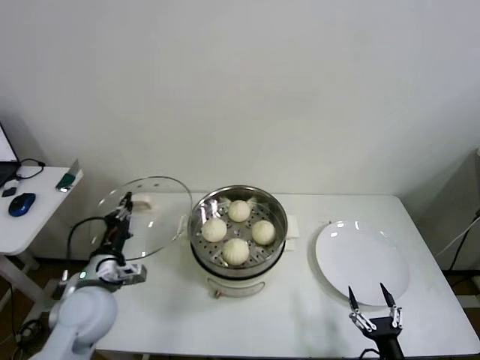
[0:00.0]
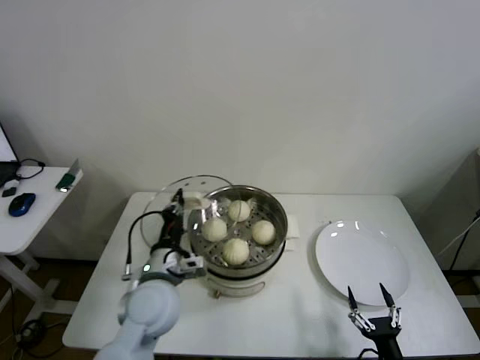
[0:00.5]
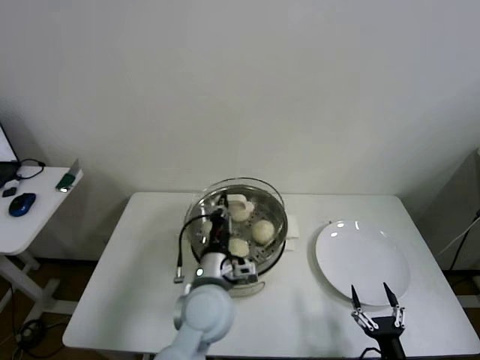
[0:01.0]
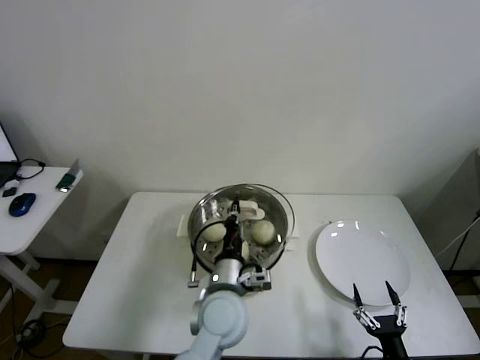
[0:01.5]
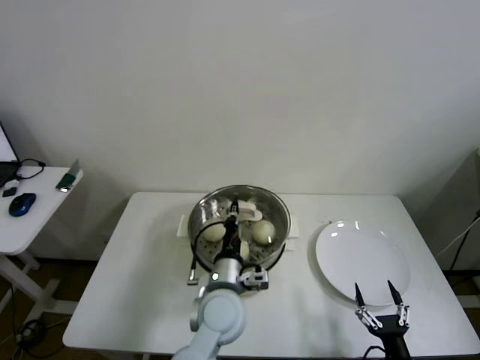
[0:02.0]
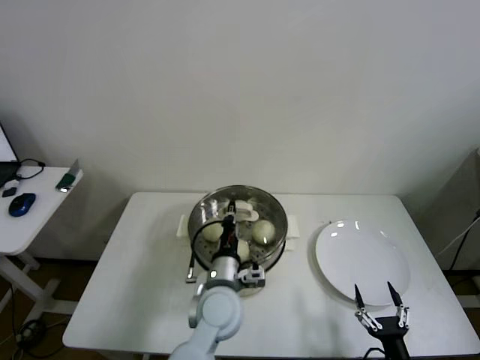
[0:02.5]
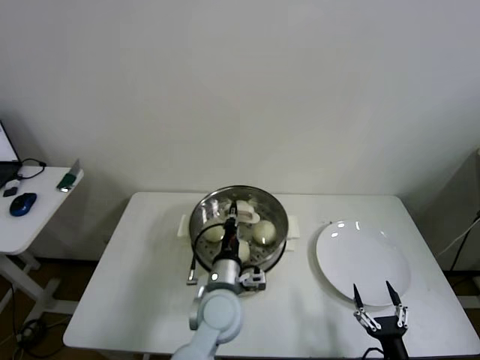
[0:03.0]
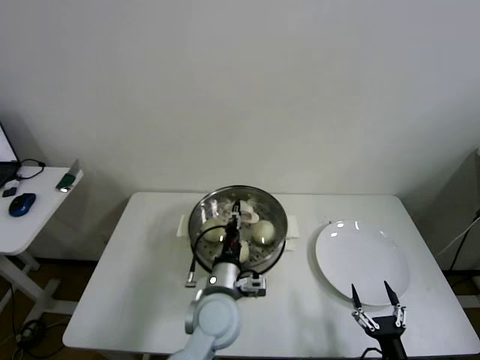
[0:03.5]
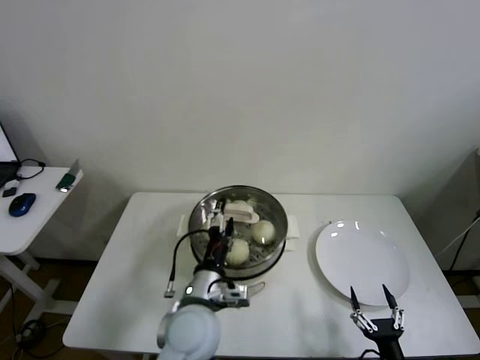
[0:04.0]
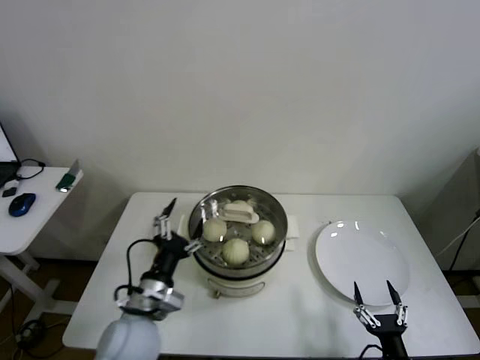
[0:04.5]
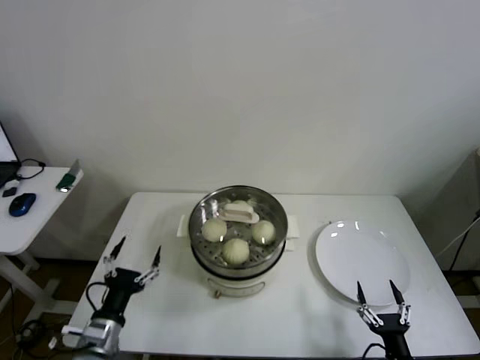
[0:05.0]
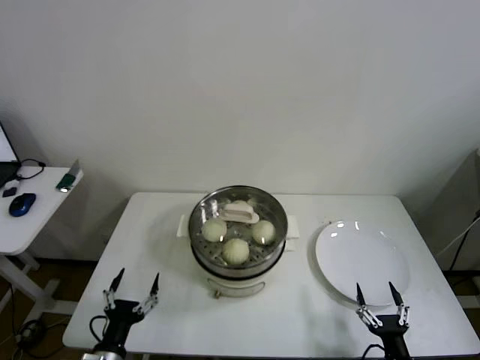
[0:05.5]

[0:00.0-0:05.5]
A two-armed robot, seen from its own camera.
Step, 0:00.0 to 0:03.5: Place the pot lid on the steamer with left gripper.
0:00.0 to 0:02.0: The left gripper heads to the right, covering roughly 25 cm.
0:02.0 to 0:03.5: The grippers move only a little.
0:03.5 to 0:05.5: The left gripper travels to the left and backward by some 30 cm, and opens up.

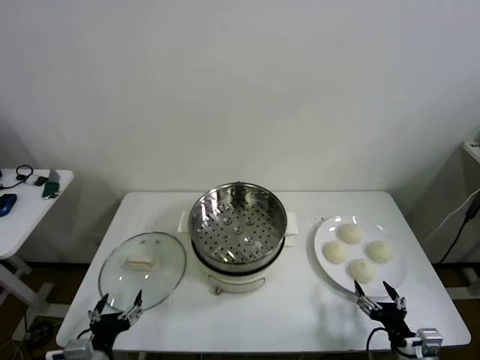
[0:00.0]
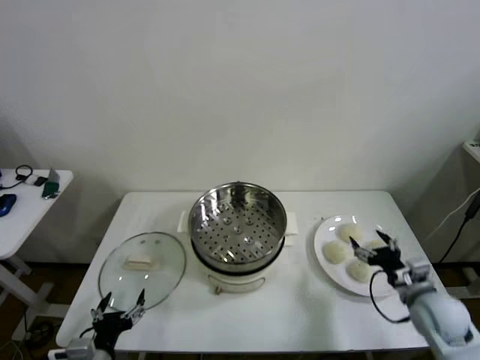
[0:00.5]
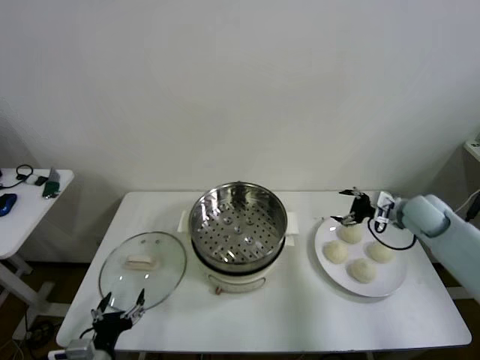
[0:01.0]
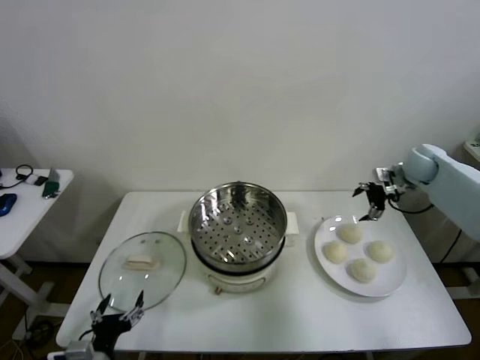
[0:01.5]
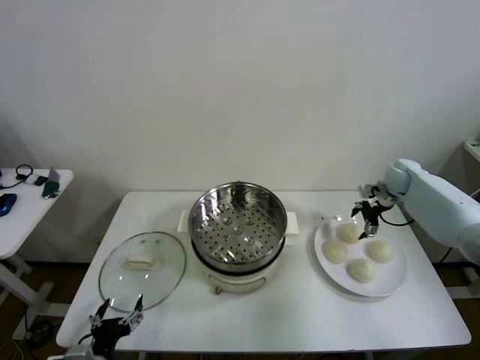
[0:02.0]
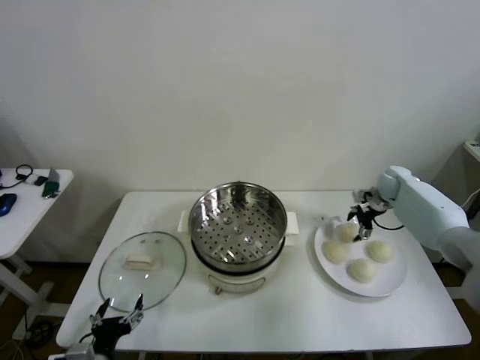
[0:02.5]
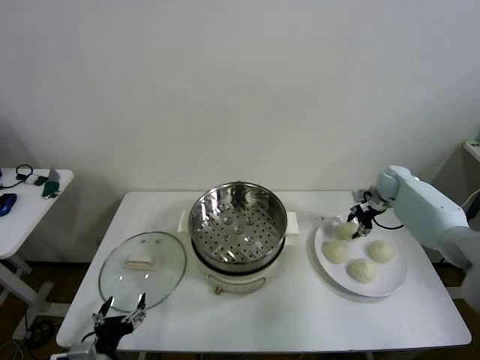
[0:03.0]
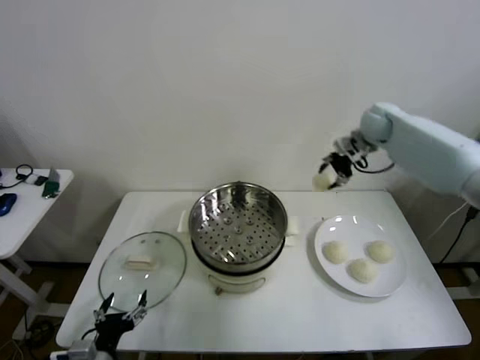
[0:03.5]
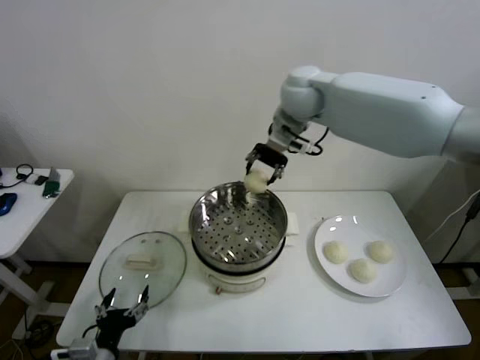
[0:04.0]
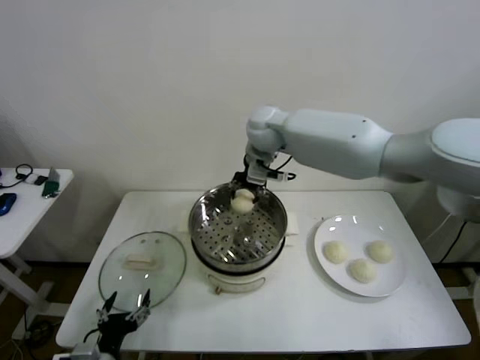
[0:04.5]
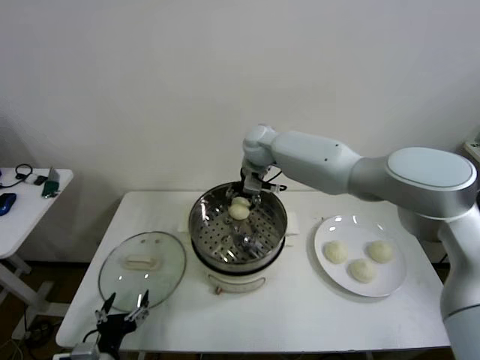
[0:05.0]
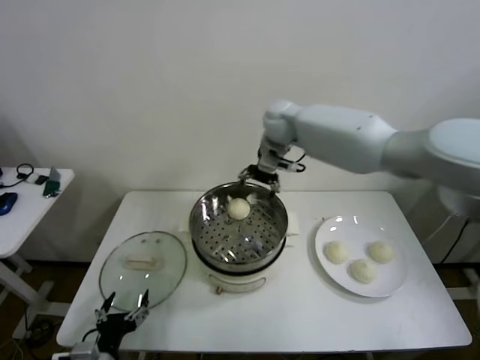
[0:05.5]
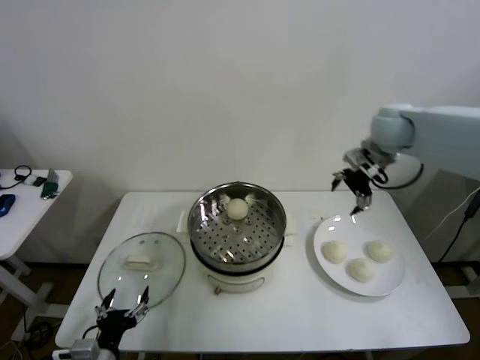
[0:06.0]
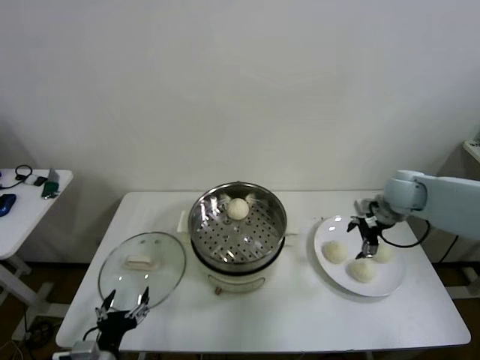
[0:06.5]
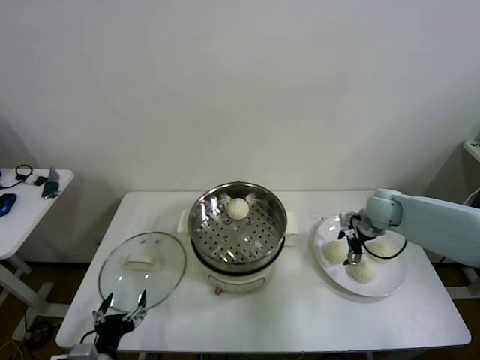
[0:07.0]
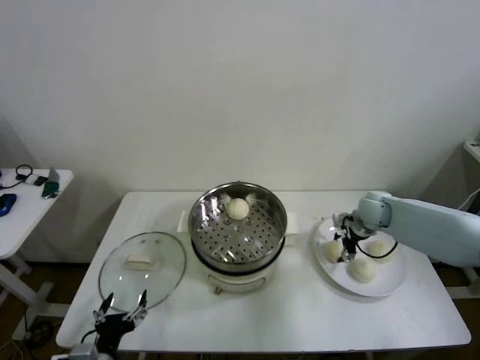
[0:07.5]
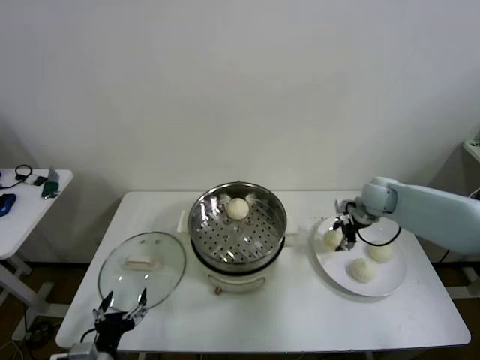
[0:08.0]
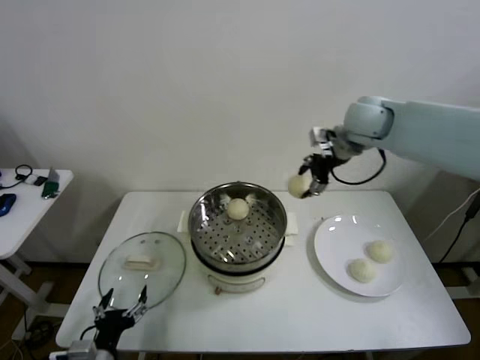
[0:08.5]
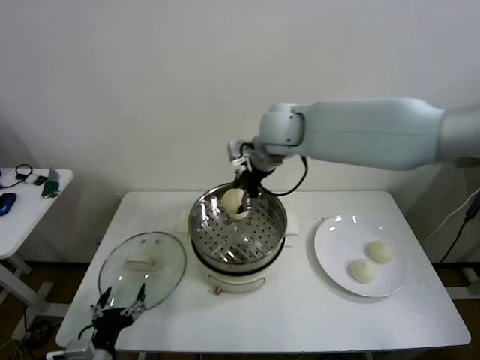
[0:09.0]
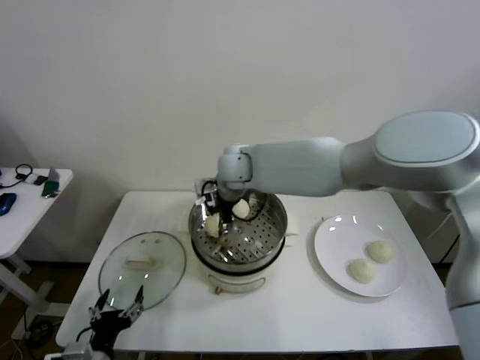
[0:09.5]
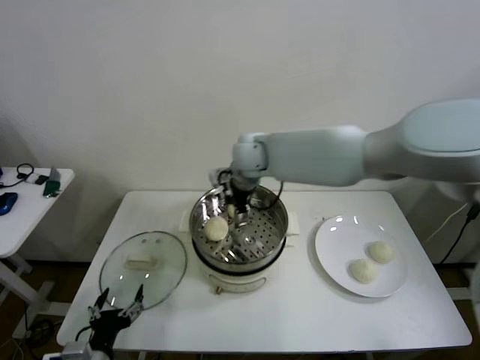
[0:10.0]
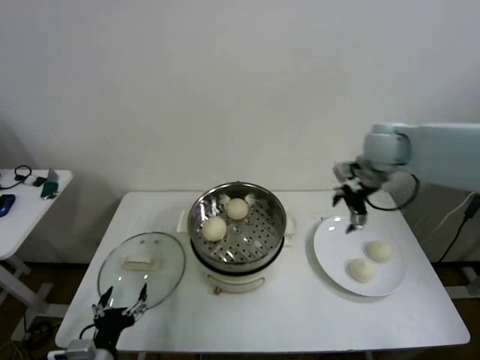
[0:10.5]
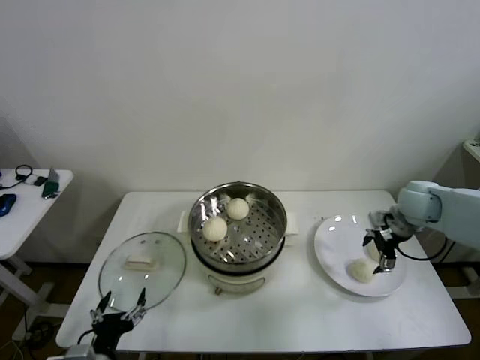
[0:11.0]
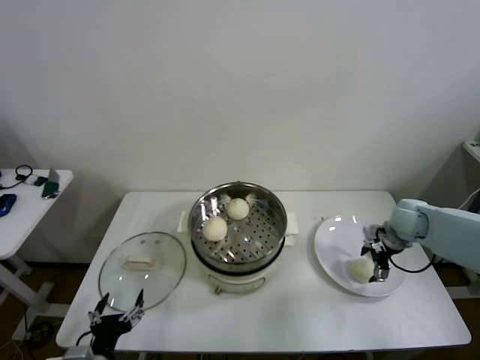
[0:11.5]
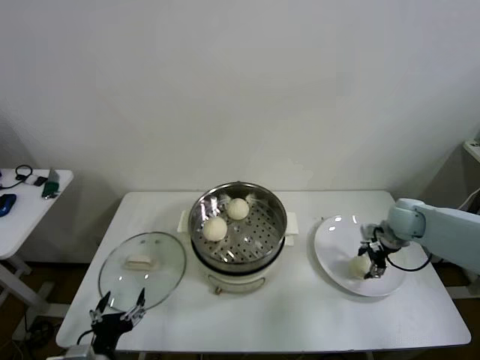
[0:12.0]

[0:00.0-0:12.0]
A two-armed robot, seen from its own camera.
Step, 0:00.0 to 0:02.5: Grasp the baozi in the plate with right gripper.
Step, 0:03.0 to 0:05.0: Place the baozi on the steamer with right gripper.
Step, 0:05.5 to 0:07.5: Grasp the baozi in the plate with right gripper.
Step, 0:08.0 to 0:09.5: Place the baozi on the steamer with right gripper.
Step, 0:10.0 to 0:11.5: Grasp the baozi in the plate with right gripper.
0:02.0 to 0:04.0: The right gripper moves to the left and upward, approximately 40 cm, and closes.
0:04.0 to 0:06.0: The right gripper travels to the right by about 25 cm, and opens.
0:06.0 to 0:08.0: The right gripper moves downward, about 15 cm, and closes its fingers.
0:08.0 to 0:10.0: The right gripper goes about 30 cm to the left and upward, and opens.
0:10.0 to 0:12.0: The right gripper heads to the right and downward, covering some 40 cm, and closes.

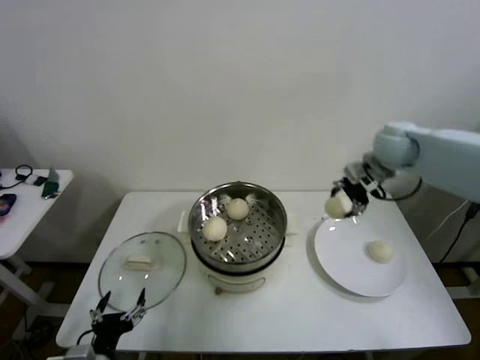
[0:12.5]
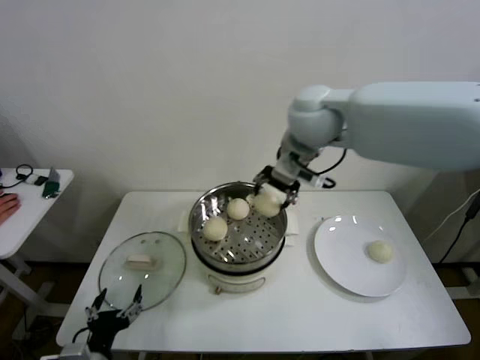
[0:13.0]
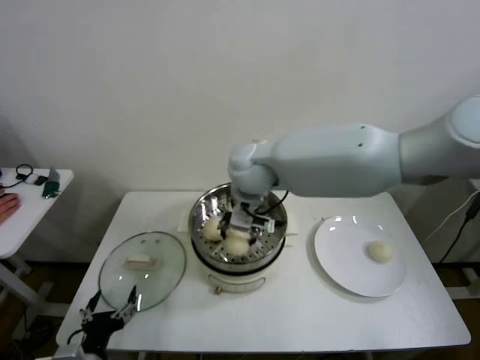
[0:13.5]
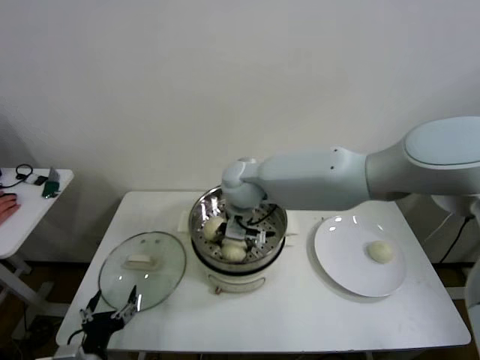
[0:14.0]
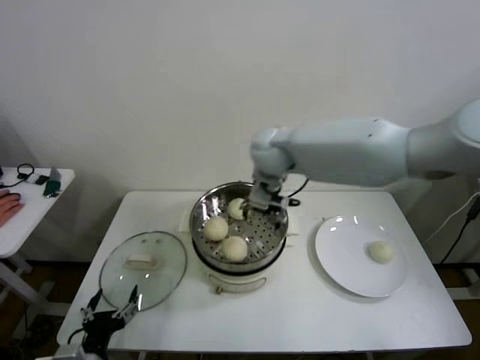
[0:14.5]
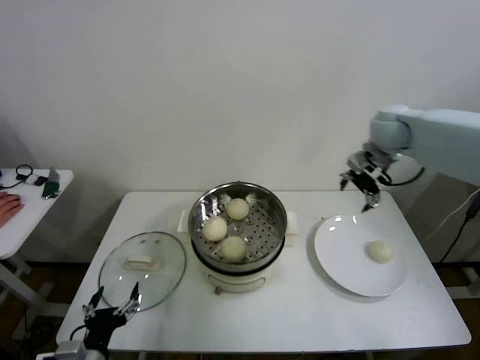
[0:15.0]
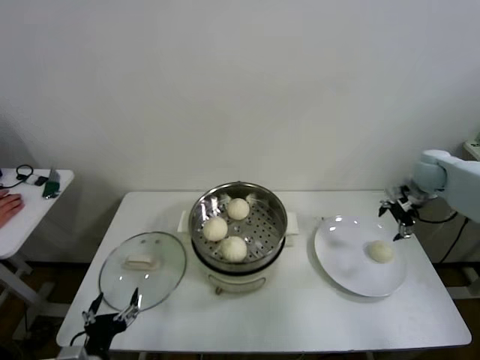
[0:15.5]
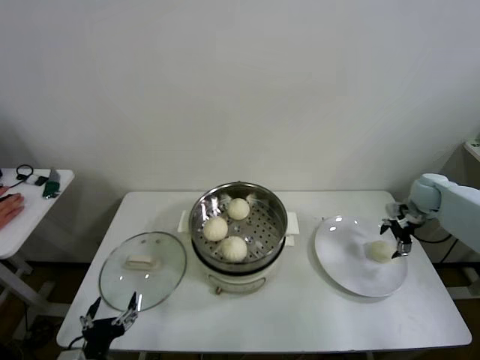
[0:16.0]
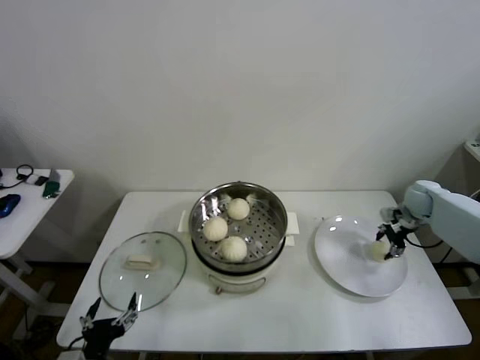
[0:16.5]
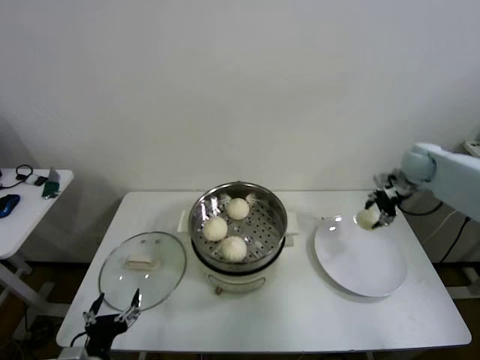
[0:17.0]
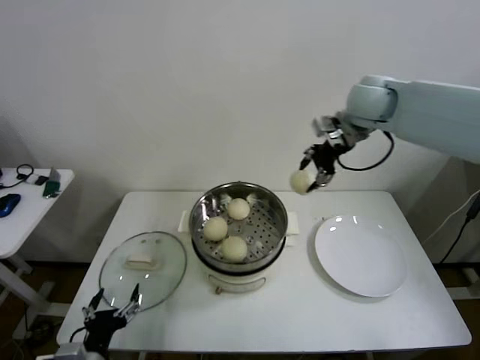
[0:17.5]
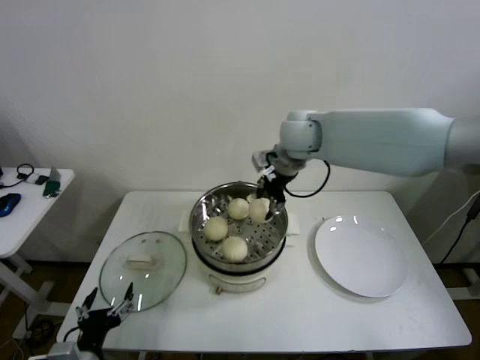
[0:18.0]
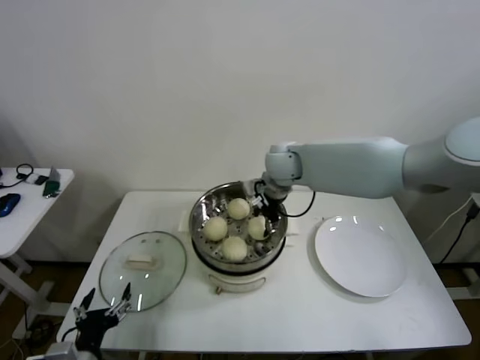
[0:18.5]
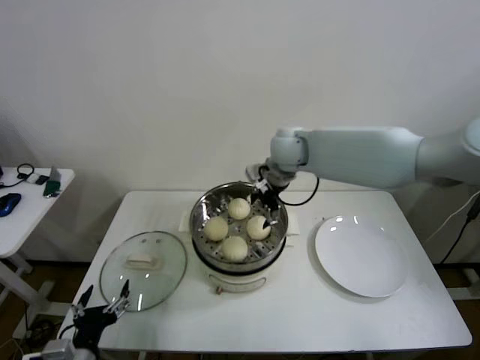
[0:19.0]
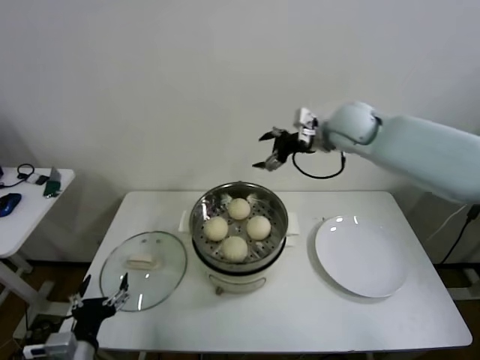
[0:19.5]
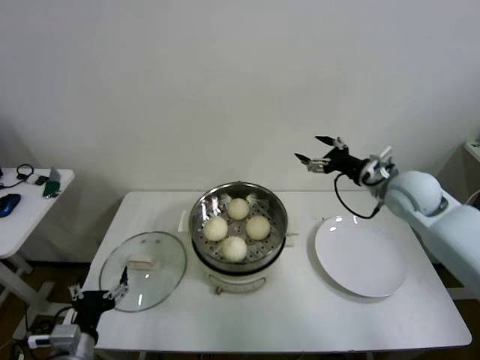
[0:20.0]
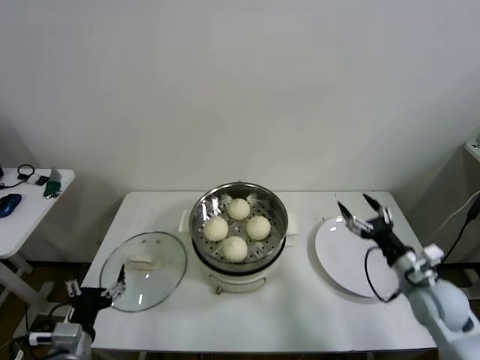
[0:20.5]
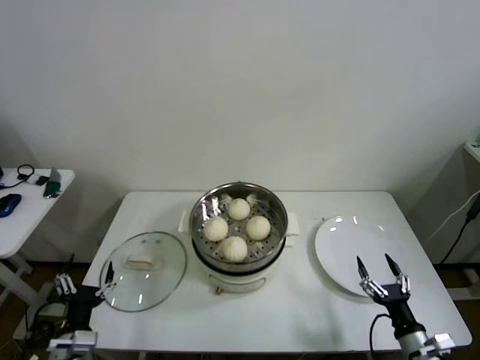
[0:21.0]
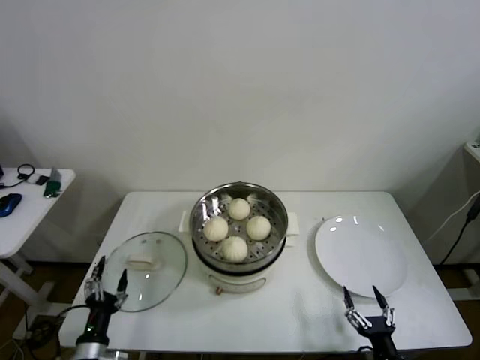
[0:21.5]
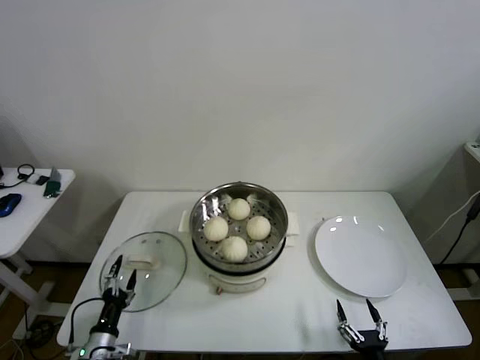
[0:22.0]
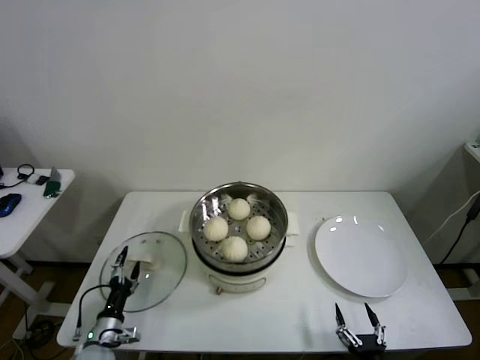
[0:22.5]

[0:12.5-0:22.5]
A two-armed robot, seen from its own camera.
Step, 0:12.5 to 0:14.0: Place the baozi on the steamer with right gripper.
Step, 0:14.5 to 0:16.5: Grasp the baozi in the plate with right gripper.
Step, 0:17.0 to 0:18.5: Place the baozi on the steamer with right gripper.
0:12.5 to 0:14.5: The right gripper moves to the left, roughly 20 cm, and opens.
0:14.5 to 0:16.5: The right gripper moves to the right and downward, approximately 40 cm, and closes.
0:16.5 to 0:18.5: The right gripper goes approximately 40 cm to the left.
0:18.5 to 0:20.5: The right gripper travels to the right, backward and downward by some 40 cm, and opens its fingers.
0:20.5 to 0:22.5: The right gripper moves backward, downward and to the left, approximately 30 cm; the left gripper heads downward and forward, covering some 20 cm.
